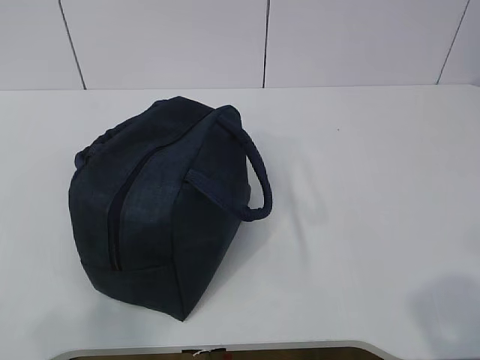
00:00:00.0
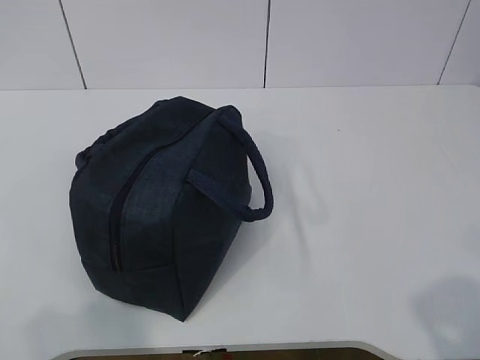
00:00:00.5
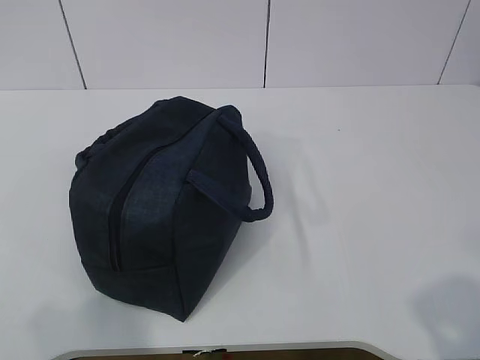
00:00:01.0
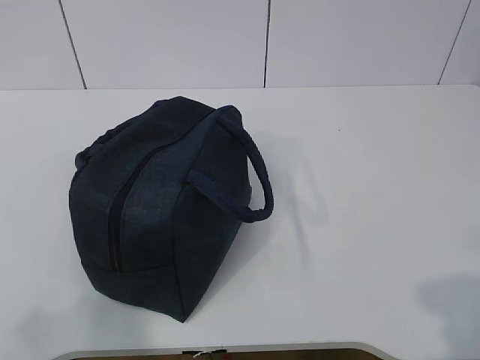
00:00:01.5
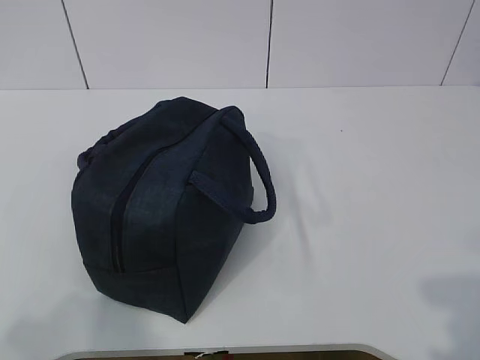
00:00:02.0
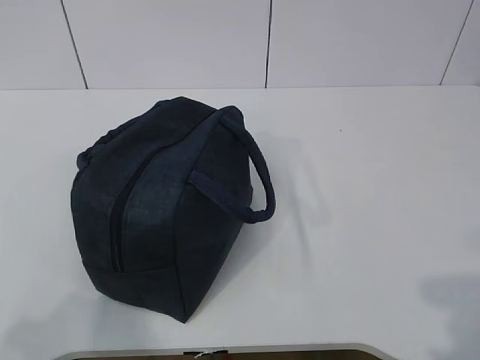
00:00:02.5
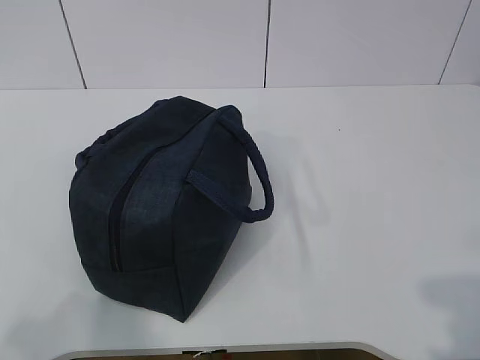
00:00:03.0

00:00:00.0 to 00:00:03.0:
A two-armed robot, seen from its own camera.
00:00:00.0 to 00:00:01.5: The grippers stay close to where they were, moving slightly.

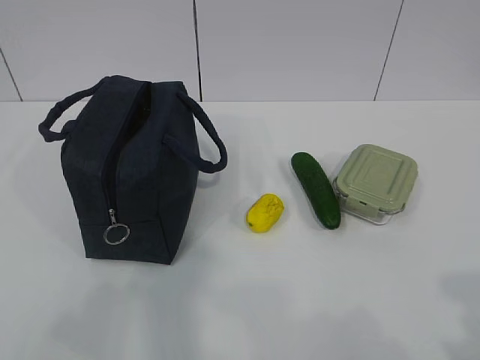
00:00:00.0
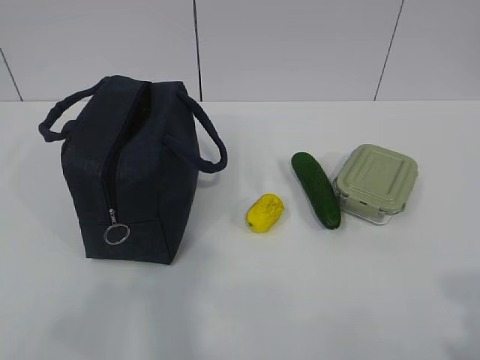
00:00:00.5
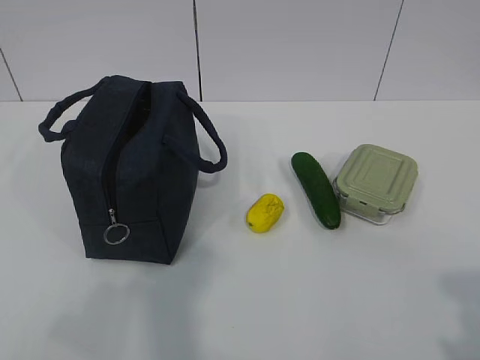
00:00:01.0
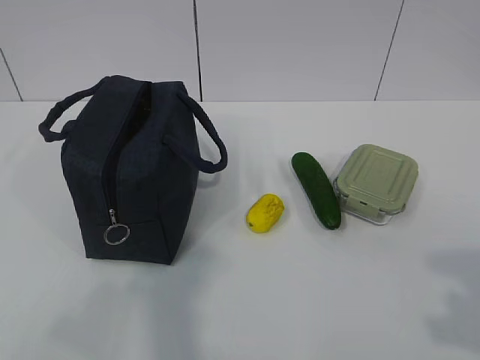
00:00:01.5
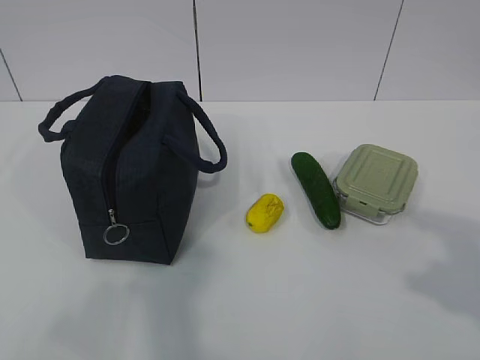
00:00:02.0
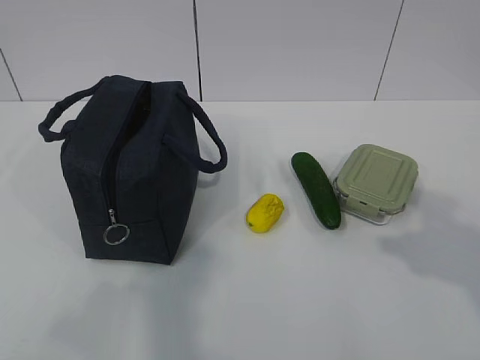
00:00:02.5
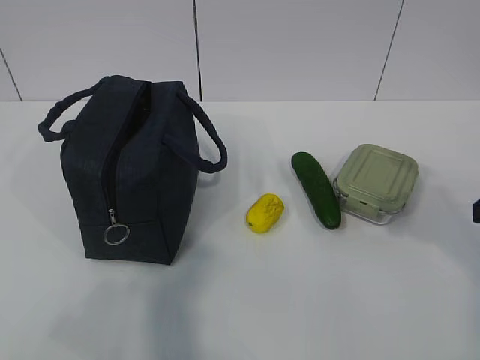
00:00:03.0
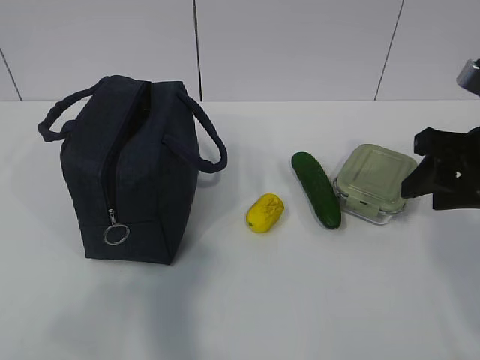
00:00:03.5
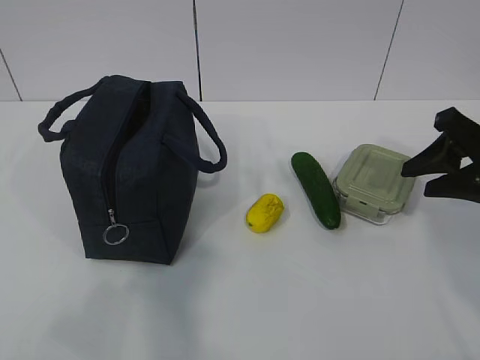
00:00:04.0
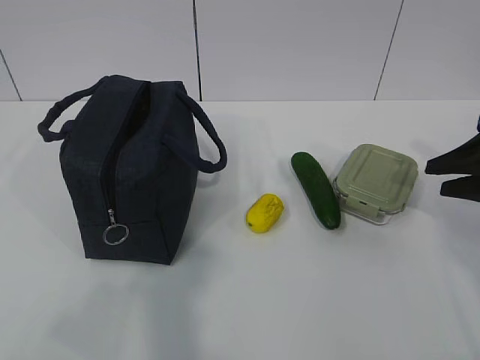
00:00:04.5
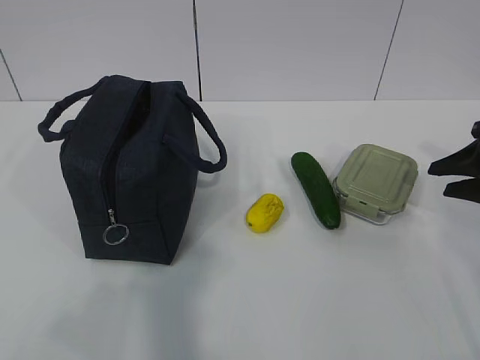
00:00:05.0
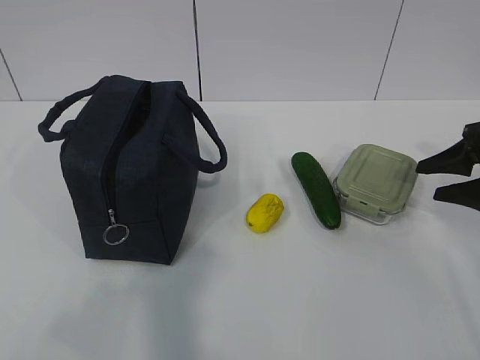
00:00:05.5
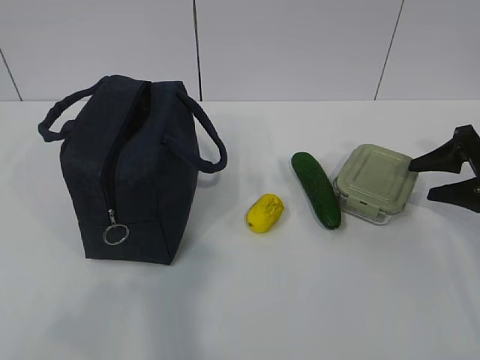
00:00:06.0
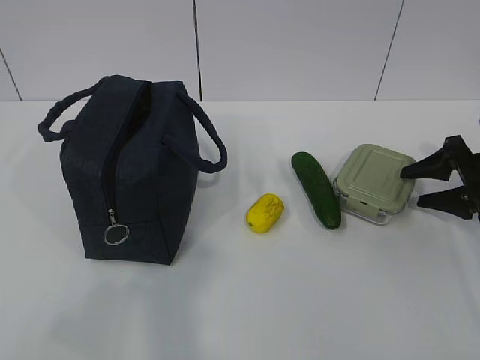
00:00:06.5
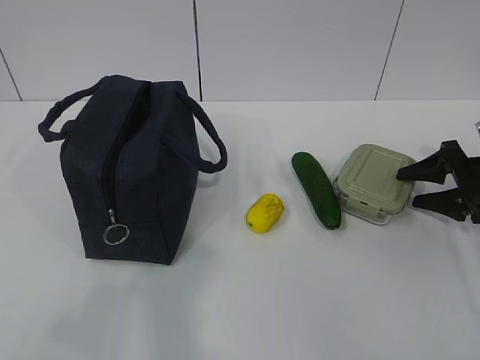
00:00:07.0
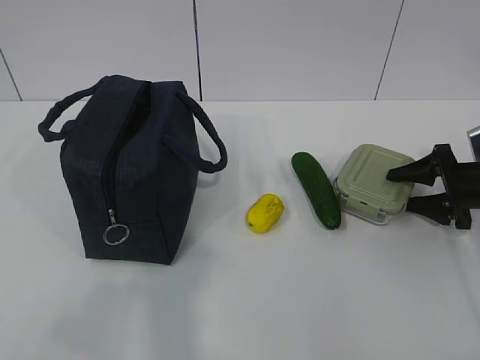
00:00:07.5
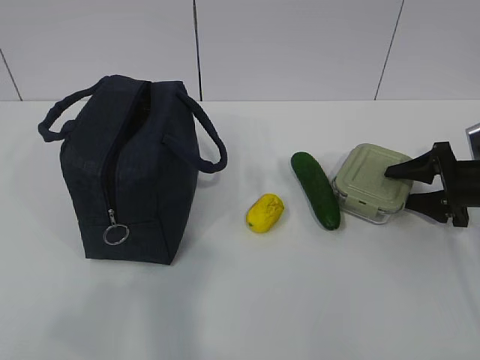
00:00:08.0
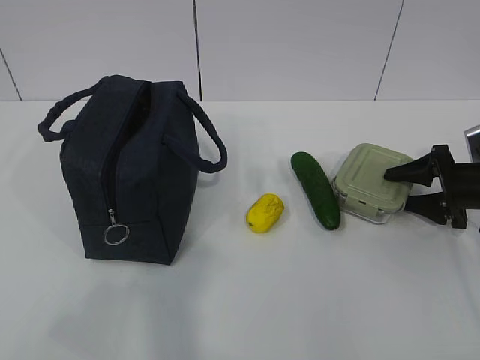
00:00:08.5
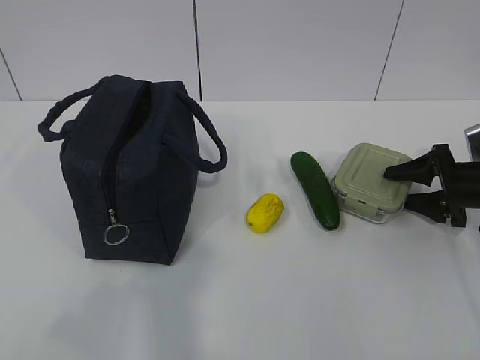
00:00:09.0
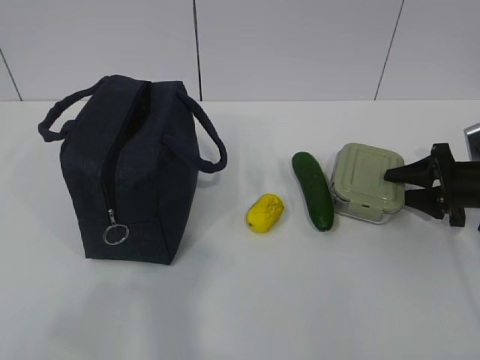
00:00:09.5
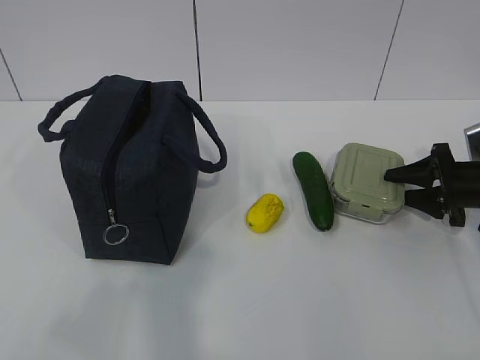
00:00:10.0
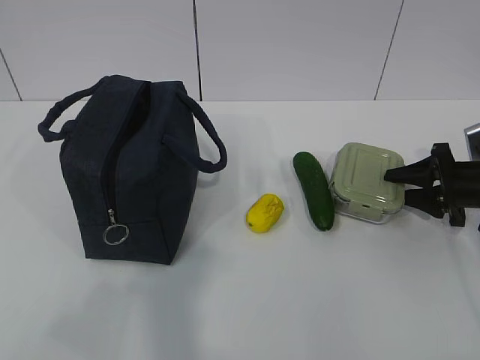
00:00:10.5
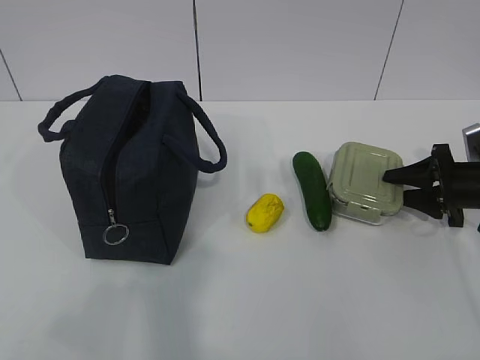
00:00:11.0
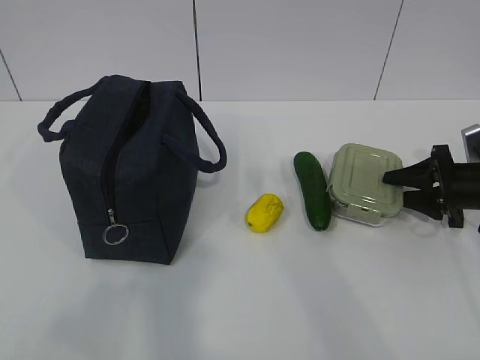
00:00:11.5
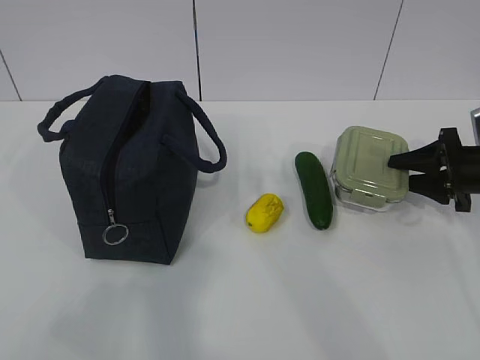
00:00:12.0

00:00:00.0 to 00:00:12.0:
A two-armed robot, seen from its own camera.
Step, 00:00:00.0 to 00:00:09.5: Grab the lunch box with your right hand.
00:00:02.0 to 00:00:04.0: The right gripper moves forward, some 25 cm.
00:00:04.0 to 00:00:06.0: The right gripper moves to the right, downward and forward, about 15 cm.
00:00:06.0 to 00:00:08.0: The right gripper travels downward by about 5 cm.
00:00:08.0 to 00:00:10.0: Neither gripper changes place.
00:00:10.0 to 00:00:12.0: The grippers make only small movements.

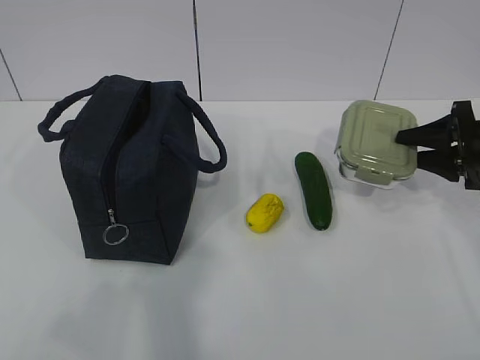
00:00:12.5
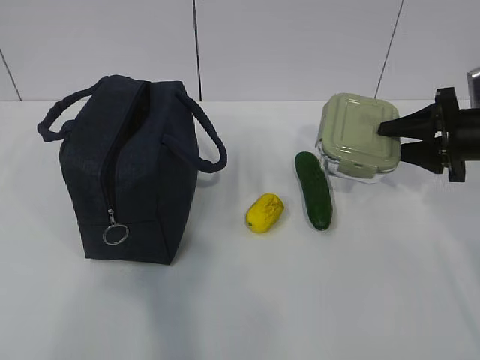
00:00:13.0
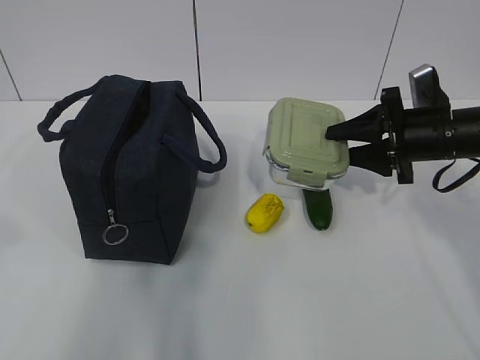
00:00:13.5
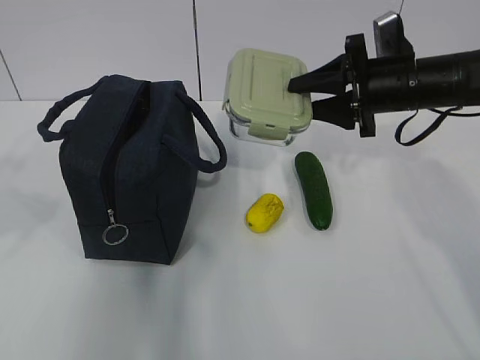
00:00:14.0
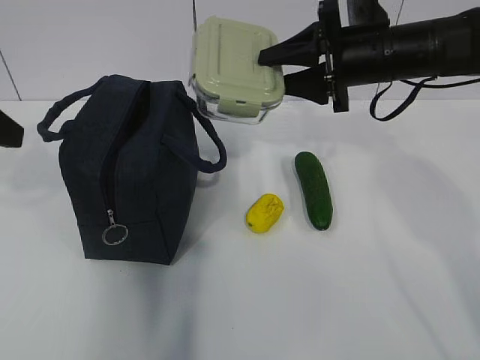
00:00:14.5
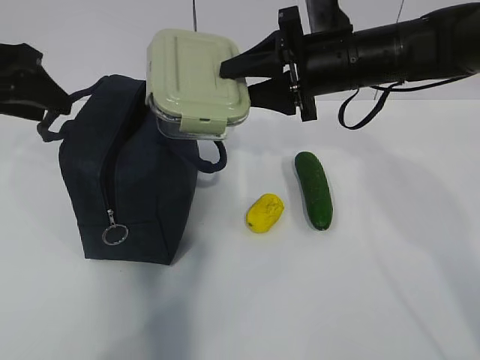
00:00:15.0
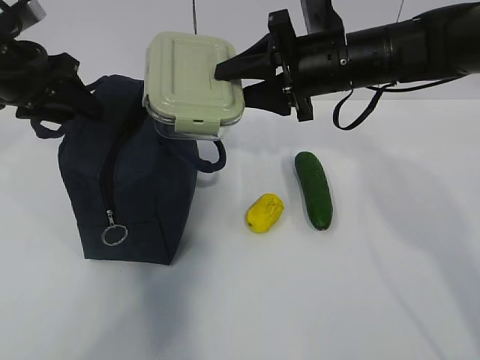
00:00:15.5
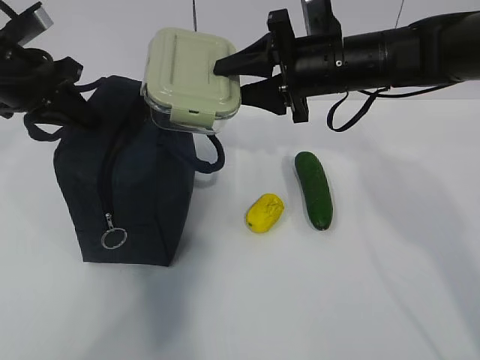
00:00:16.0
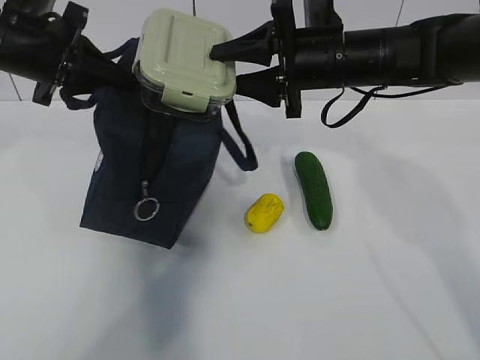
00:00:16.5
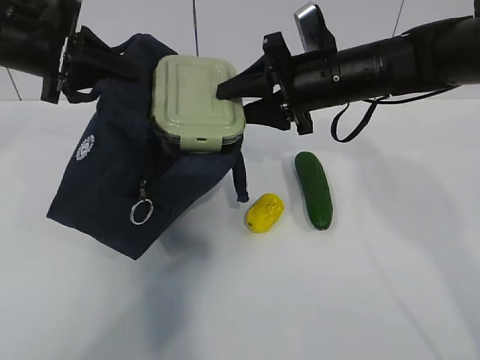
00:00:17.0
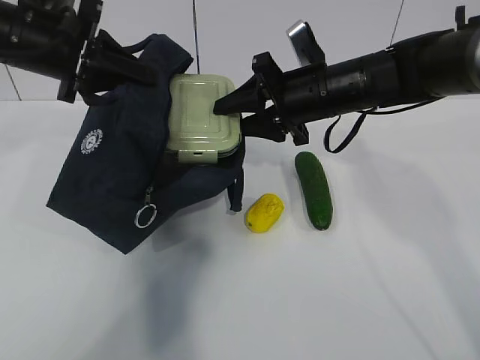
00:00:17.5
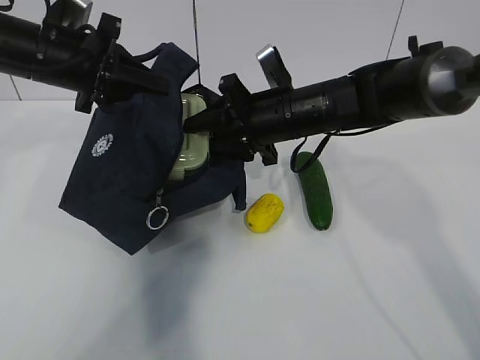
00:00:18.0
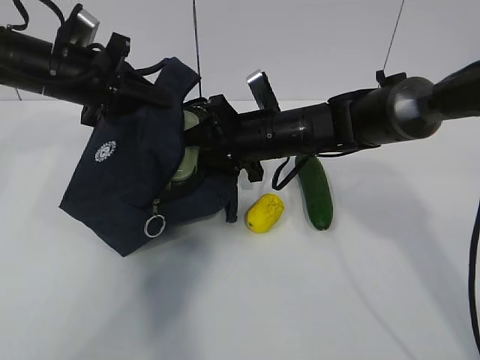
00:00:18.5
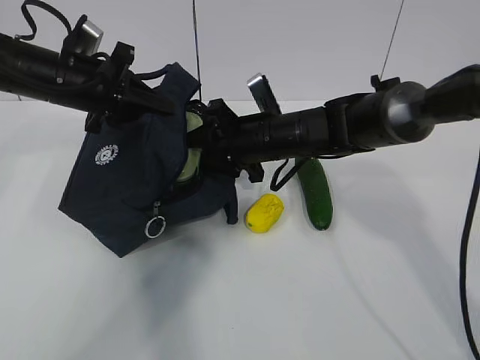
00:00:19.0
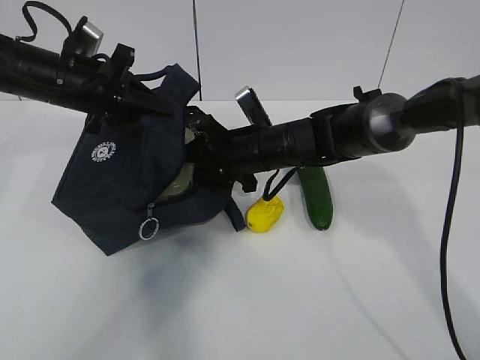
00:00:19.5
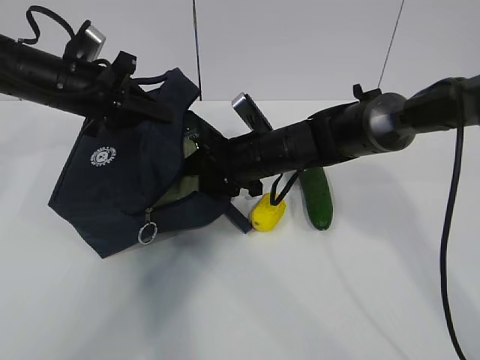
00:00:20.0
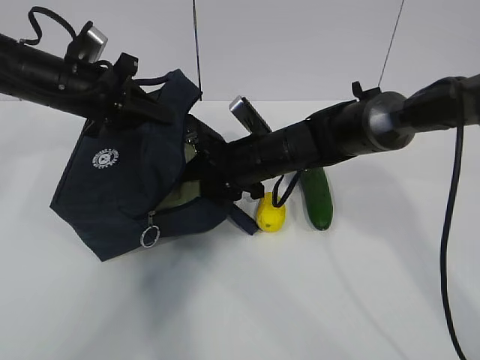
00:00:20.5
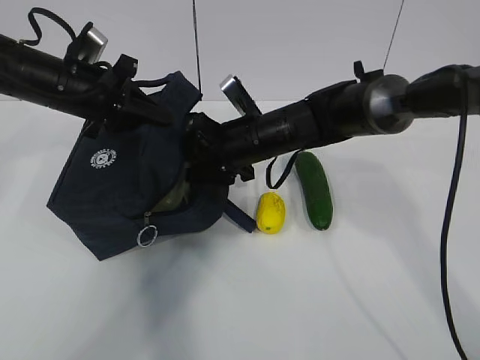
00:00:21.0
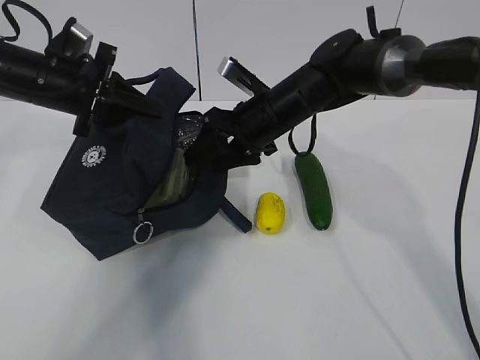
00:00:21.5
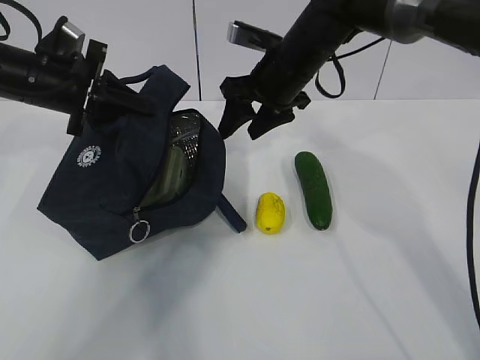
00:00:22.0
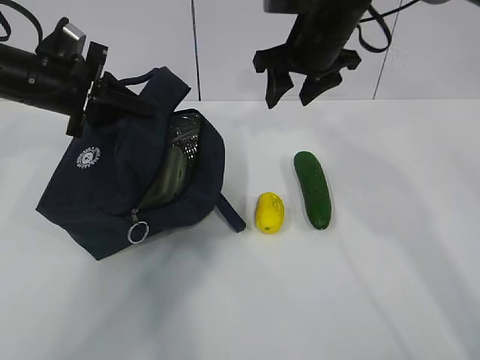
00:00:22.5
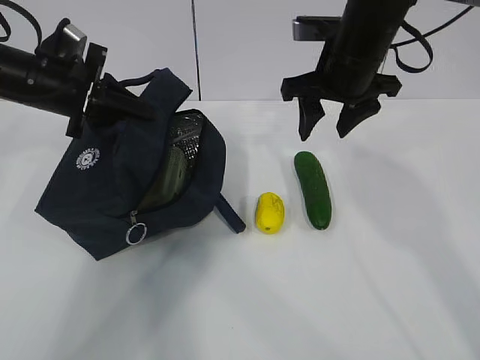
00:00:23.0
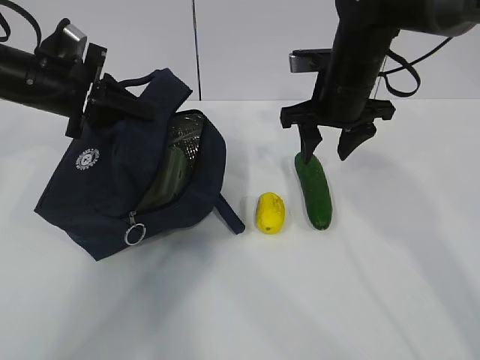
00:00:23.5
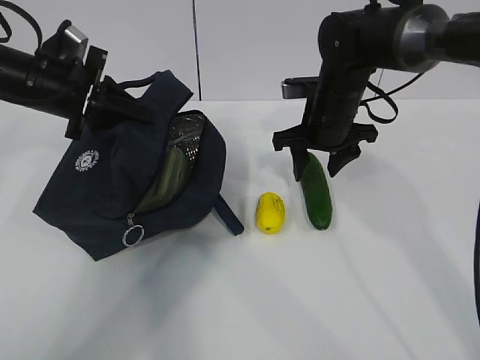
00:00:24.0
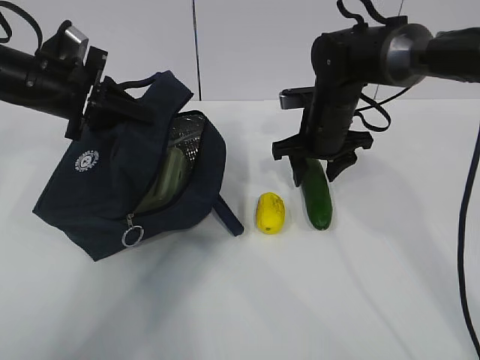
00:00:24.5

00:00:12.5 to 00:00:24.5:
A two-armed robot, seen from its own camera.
Step, 00:00:14.0 to 00:00:17.0: Place it into the bag with your right hand.
Step, 00:00:17.5 to 00:00:21.5: Grab the cucumber with your right hand.
Step, 00:00:22.0 to 00:00:23.5: Place it into the bag with your right hand.
00:00:12.5 to 00:00:14.5: The right gripper heads to the left and upward, covering approximately 20 cm; the left gripper travels forward by approximately 25 cm.
00:00:14.5 to 00:00:16.5: The right gripper shifts about 5 cm to the left; the left gripper moves forward, approximately 15 cm, and closes its fingers.
00:00:16.5 to 00:00:18.5: The left gripper changes place by about 5 cm, while the right gripper moves downward and to the left, roughly 10 cm.
00:00:18.5 to 00:00:20.5: The grippers make only small movements.
00:00:20.5 to 00:00:22.5: The right gripper is displaced upward and to the right by some 15 cm.
00:00:22.5 to 00:00:24.5: The right gripper moves downward, roughly 10 cm.
